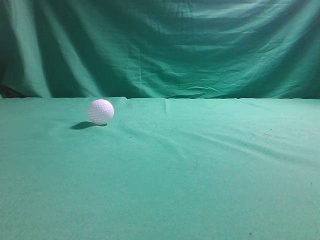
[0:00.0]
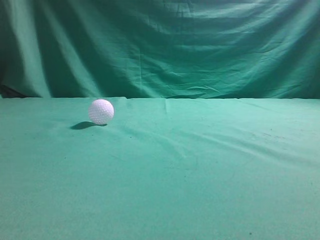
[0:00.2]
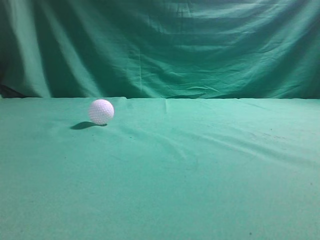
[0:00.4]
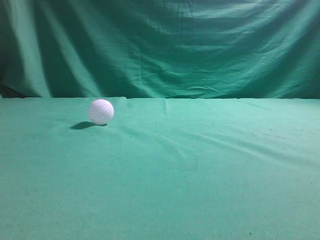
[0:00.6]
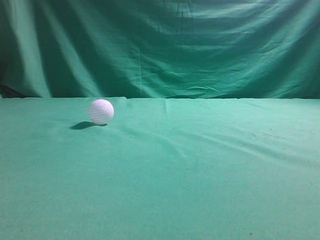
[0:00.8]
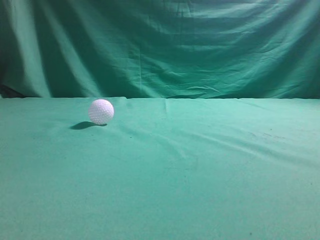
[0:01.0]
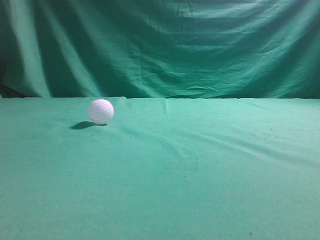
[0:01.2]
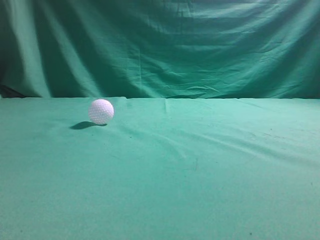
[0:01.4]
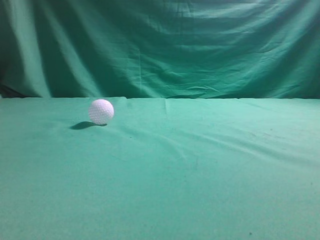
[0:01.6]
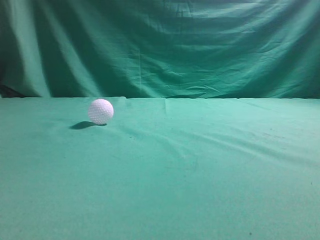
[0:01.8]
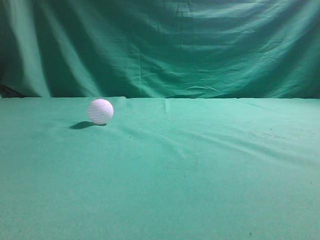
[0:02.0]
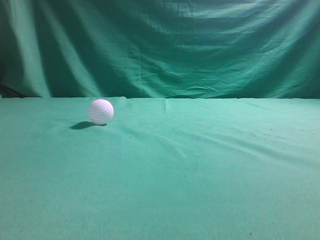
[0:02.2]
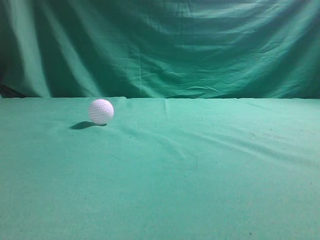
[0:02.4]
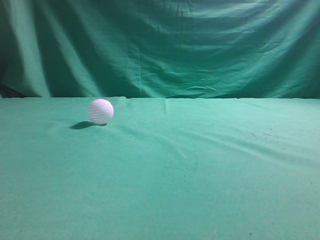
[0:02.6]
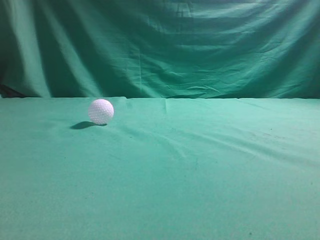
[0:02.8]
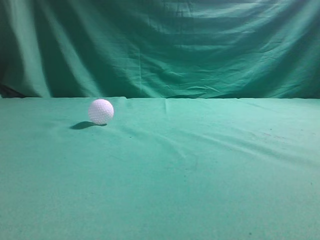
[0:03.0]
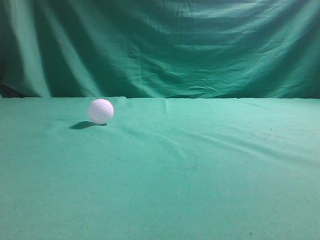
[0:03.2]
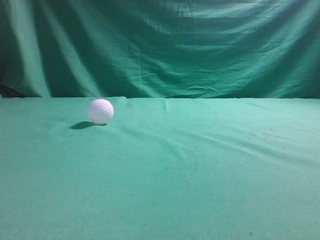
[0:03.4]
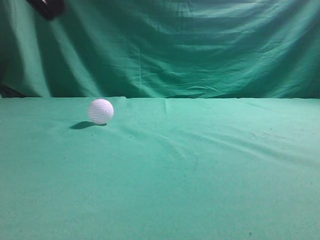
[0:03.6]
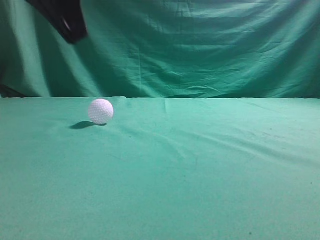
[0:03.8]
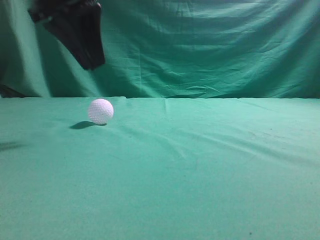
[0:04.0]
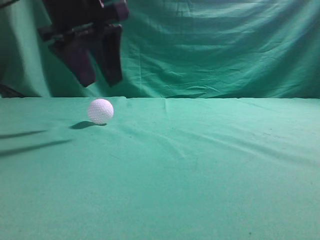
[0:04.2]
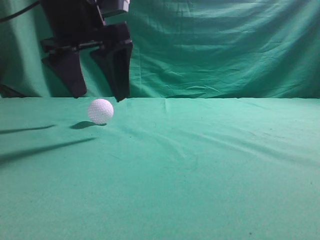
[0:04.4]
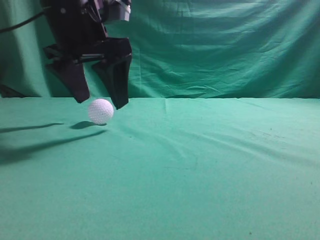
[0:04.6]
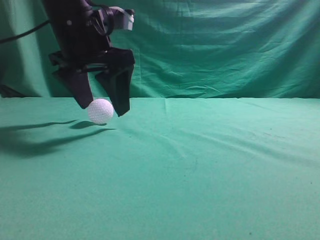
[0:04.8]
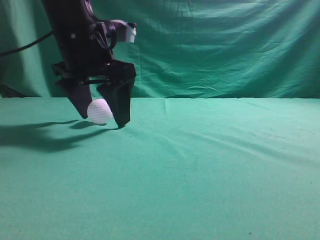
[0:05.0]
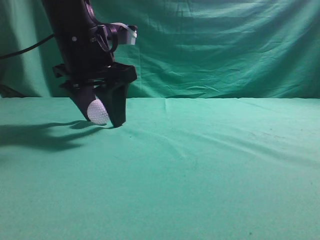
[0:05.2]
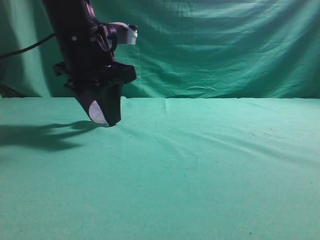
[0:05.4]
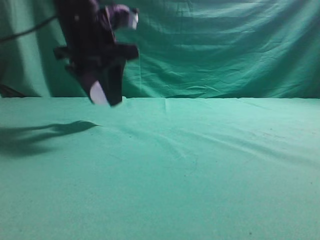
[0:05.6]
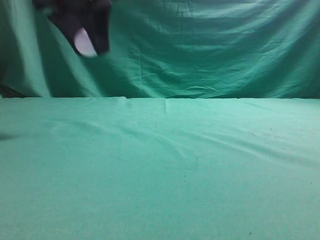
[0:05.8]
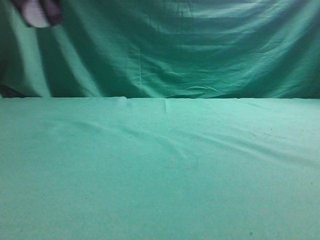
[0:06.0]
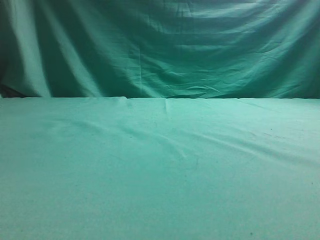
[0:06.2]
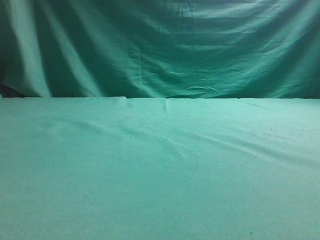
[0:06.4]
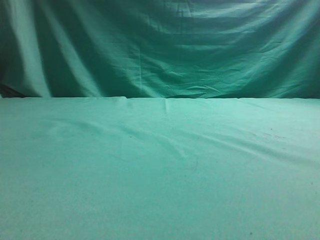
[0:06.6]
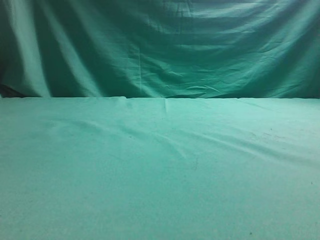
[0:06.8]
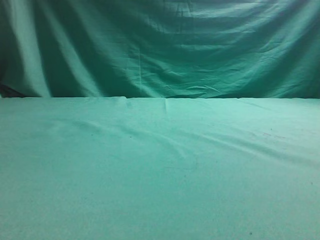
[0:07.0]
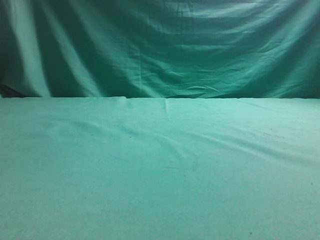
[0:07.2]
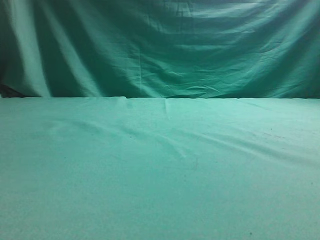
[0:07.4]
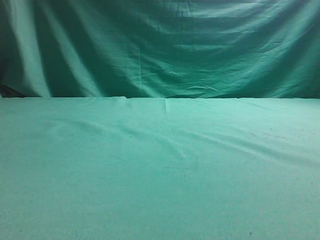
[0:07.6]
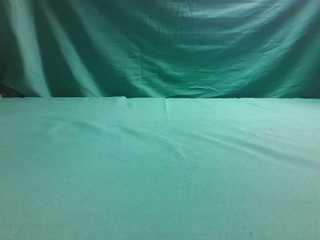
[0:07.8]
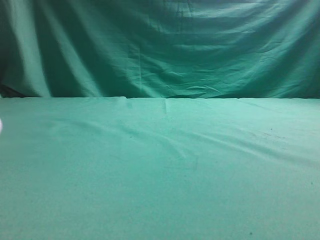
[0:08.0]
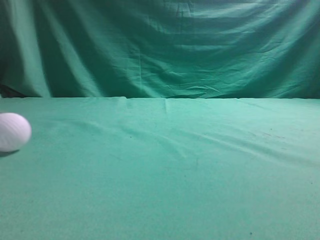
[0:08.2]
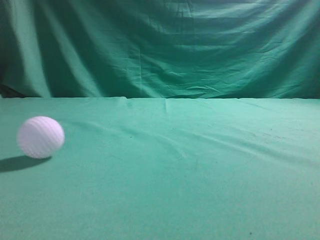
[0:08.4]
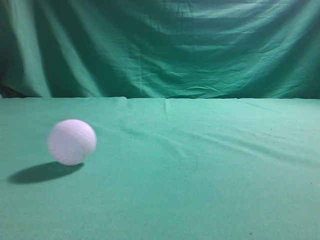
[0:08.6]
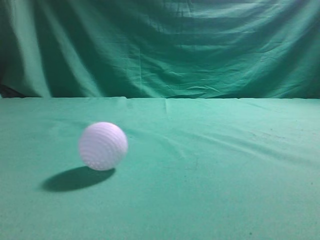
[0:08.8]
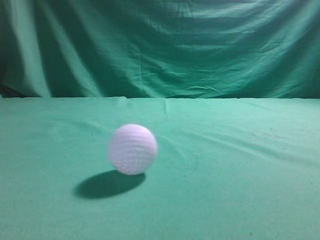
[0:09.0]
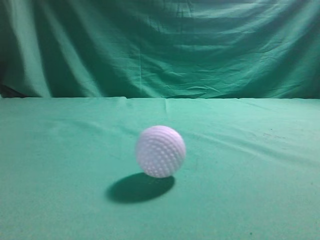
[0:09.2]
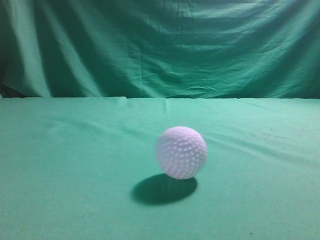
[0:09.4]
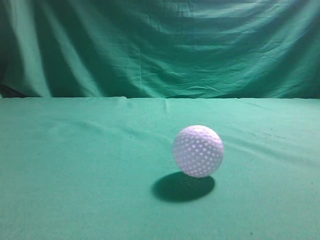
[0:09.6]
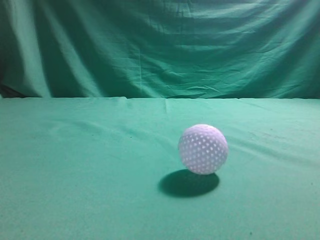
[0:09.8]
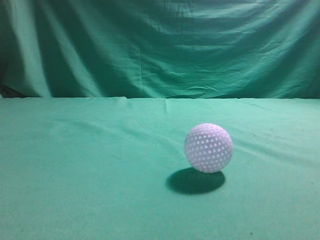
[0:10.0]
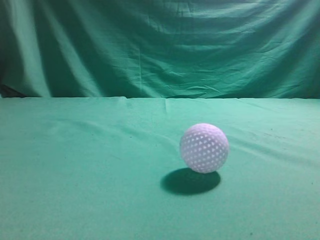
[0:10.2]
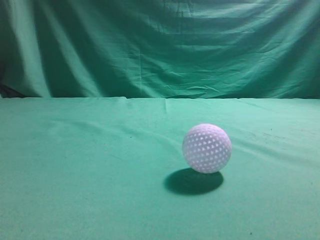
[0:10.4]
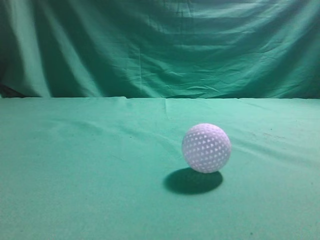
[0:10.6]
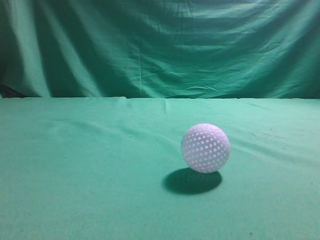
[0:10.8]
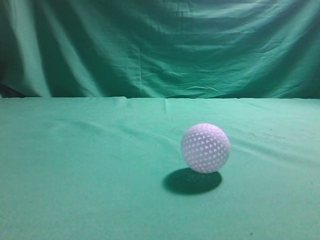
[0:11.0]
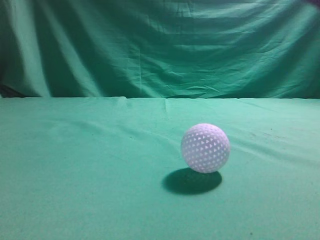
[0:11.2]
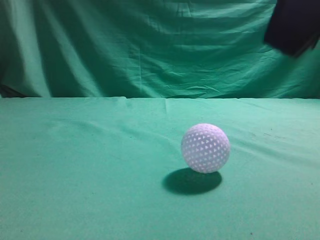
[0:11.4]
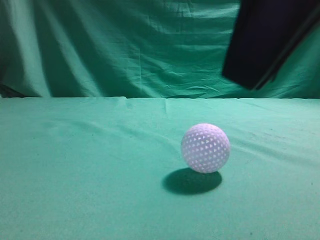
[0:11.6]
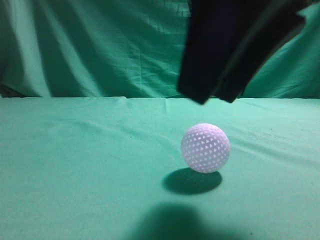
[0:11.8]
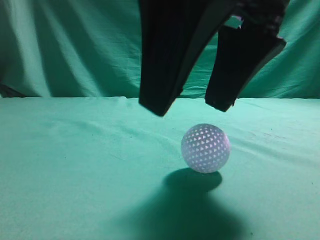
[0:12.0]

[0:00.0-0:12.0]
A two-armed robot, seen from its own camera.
Task of the whole recording: pick up the ball and place it on the plate, then pick up the ball from the plate and put it in the center of the table.
Step, 0:00.0 to 0:05.4: Grab the spherical object with your left arm.
Step, 0:05.6 to 0:07.4: Place the sphere on the white object.
0:03.0 to 0:04.4: The left gripper goes roughly 25 cm forward, to the right and downward, and opens its fingers.
0:04.4 to 0:06.0: The left gripper travels upward and to the left by some 10 cm, and closes its fingers.
0:06.0 to 0:07.6: The left gripper travels to the left and downward by about 20 cm.
0:07.6 to 0:09.0: The left gripper shifts some 30 cm upward, backward and to the right, and closes up.
0:09.0 to 0:10.4: The right gripper heads upward, covering some 10 cm; the left gripper goes roughly 20 cm backward and downward.
0:10.4 to 0:12.0: The right gripper moves to the left and forward, approximately 25 cm, and opens up.

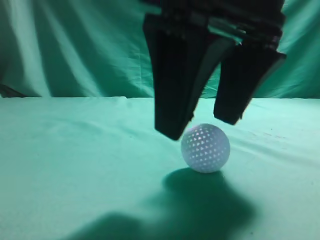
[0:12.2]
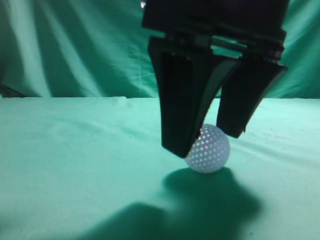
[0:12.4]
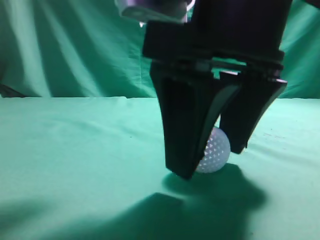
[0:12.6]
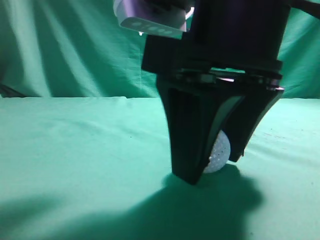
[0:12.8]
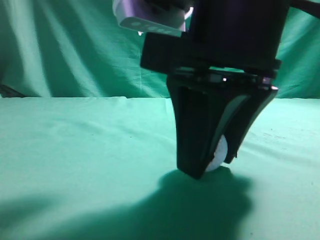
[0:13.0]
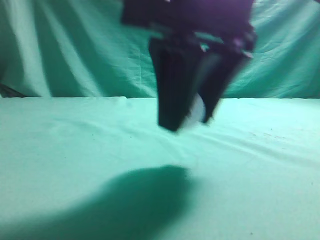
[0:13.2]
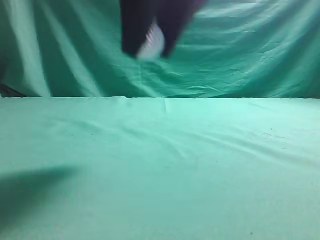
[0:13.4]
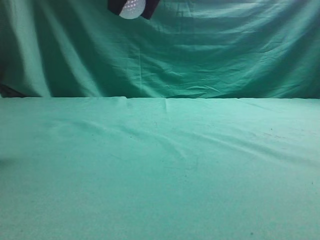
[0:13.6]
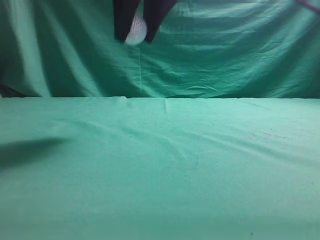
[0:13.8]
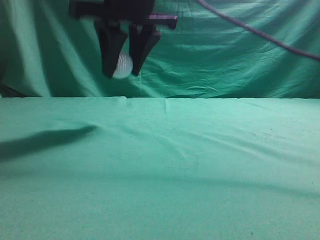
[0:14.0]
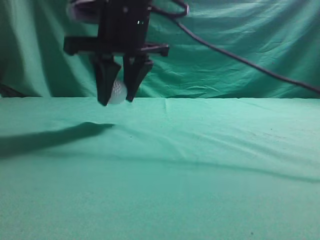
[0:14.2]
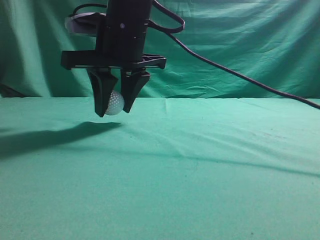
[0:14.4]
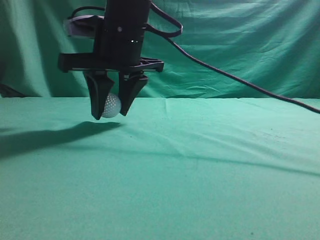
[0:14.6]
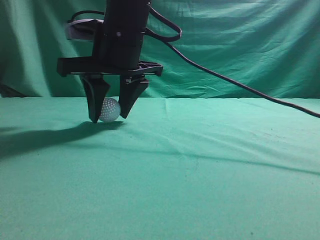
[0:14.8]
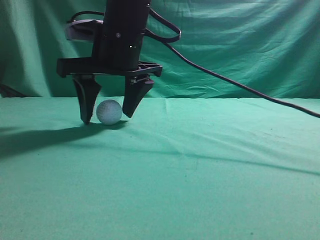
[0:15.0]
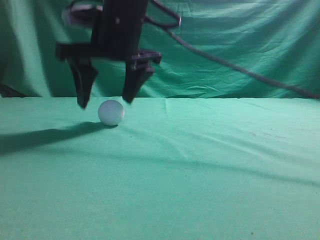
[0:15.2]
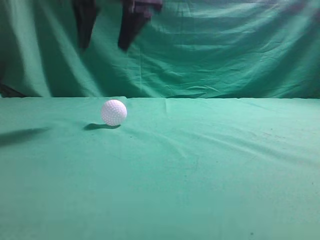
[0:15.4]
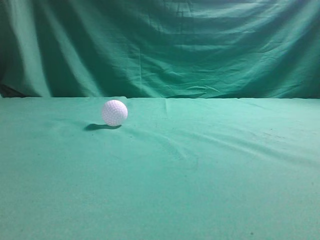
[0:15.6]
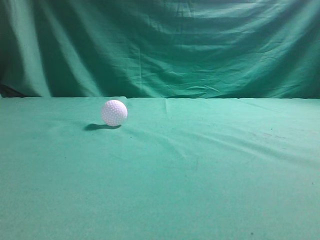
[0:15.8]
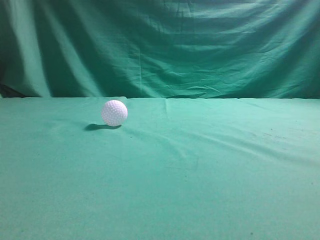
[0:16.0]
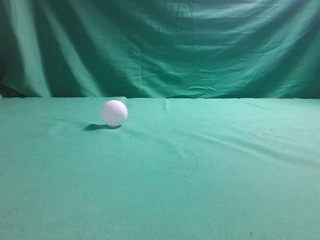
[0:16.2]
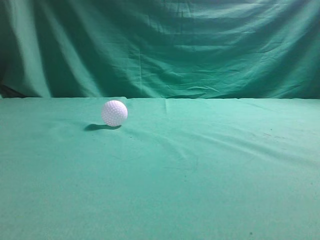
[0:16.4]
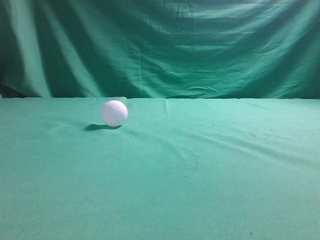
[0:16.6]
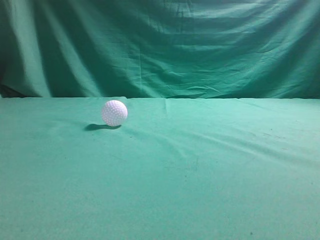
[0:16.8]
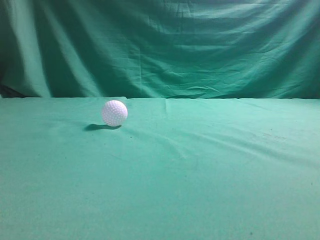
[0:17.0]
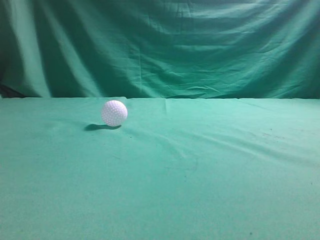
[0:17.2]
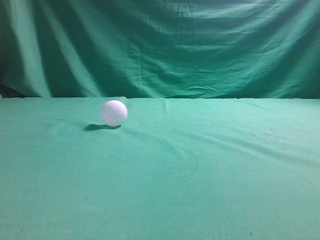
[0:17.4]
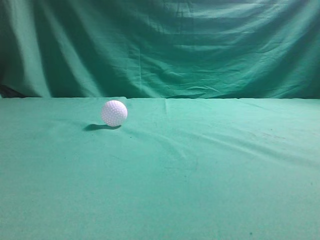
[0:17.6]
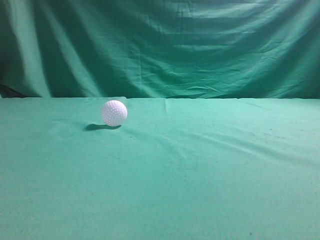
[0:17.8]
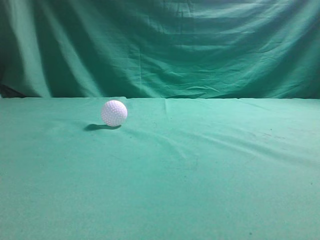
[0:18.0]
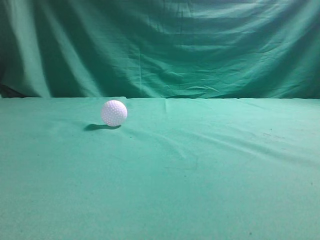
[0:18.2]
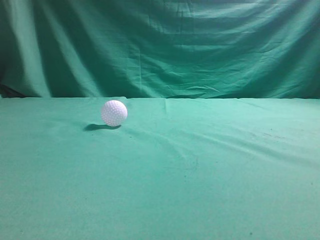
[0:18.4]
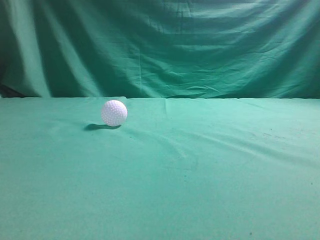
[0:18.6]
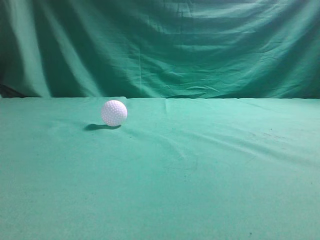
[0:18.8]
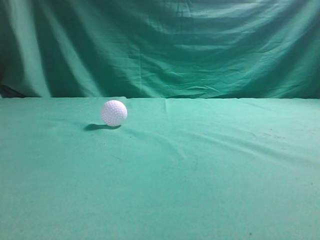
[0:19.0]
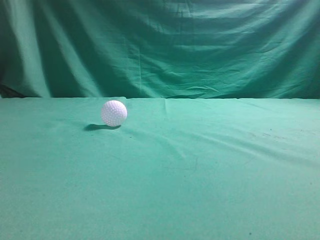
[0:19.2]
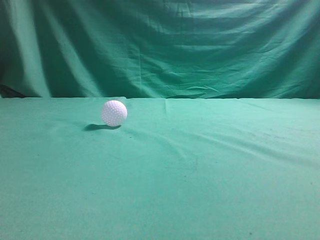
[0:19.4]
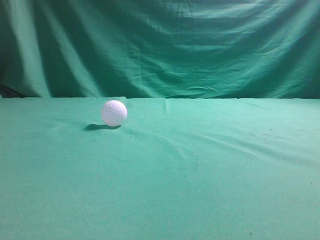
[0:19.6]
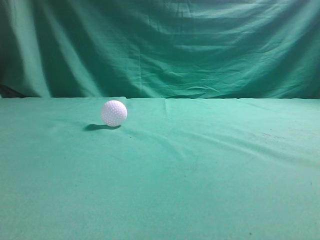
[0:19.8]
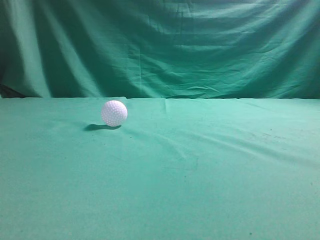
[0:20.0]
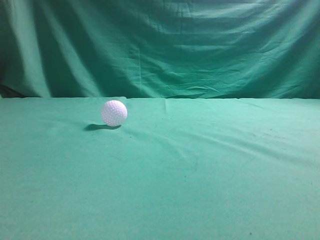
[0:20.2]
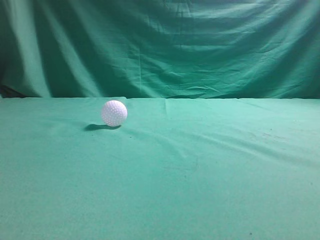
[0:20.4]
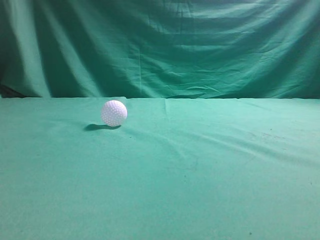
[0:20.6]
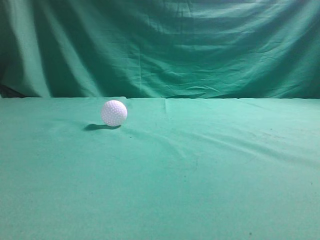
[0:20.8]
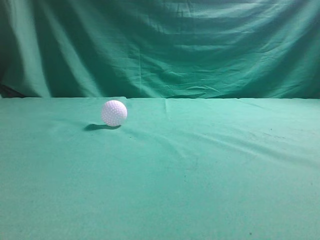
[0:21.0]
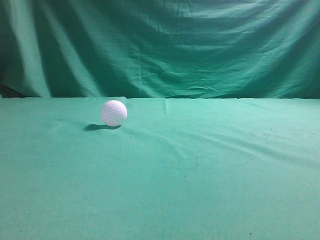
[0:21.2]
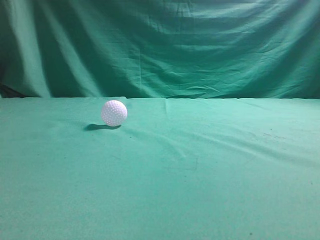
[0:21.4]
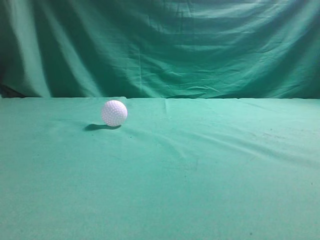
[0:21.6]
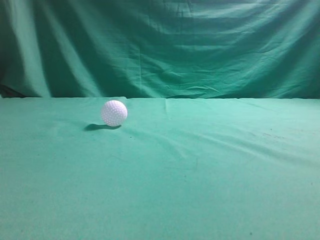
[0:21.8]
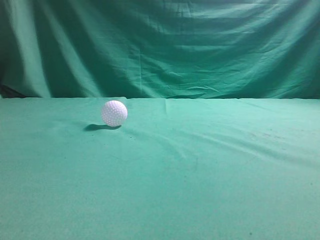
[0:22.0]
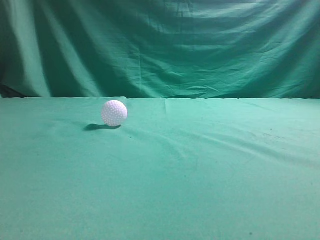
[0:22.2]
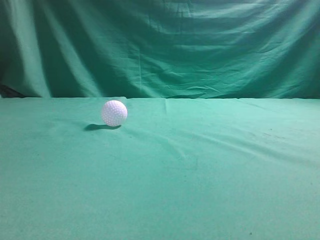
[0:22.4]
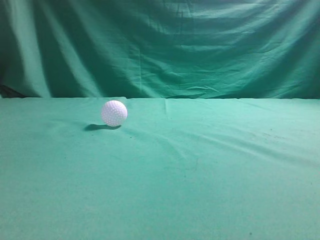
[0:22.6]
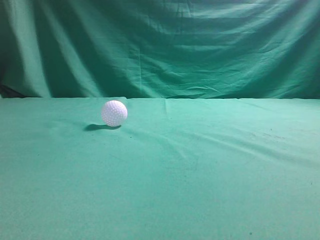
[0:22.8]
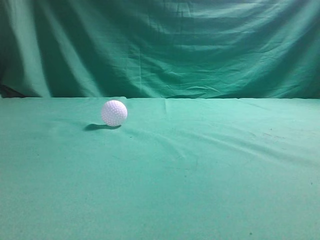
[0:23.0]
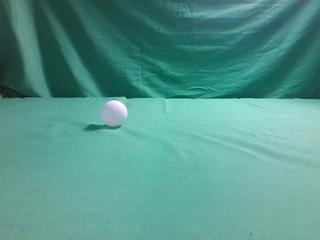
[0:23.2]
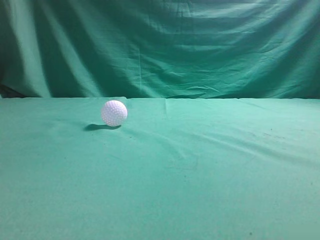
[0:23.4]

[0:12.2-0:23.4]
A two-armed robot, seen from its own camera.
Task of the whole recording: pick up the ball and place it on the plate, then pick up the ball from the plate and put it in the center of the table.
Step, 0:13.2 to 0:15.2: Put the picked-up object on the table.
0:12.2 to 0:13.8: The right gripper shifts roughly 15 cm forward, upward and to the left, and closes its fingers.
0:13.8 to 0:15.4: The right gripper moves about 10 cm downward and comes back.
0:15.4 to 0:17.0: The right gripper goes some 35 cm to the right, backward and upward, and closes up.
